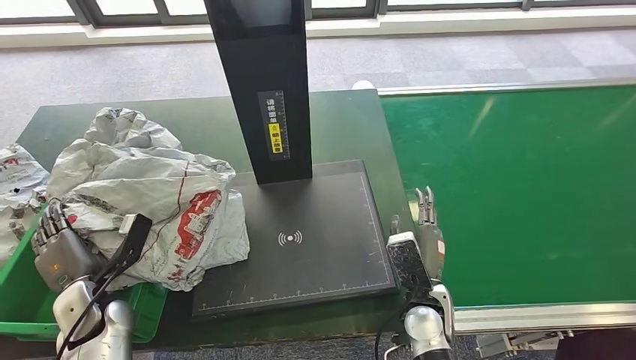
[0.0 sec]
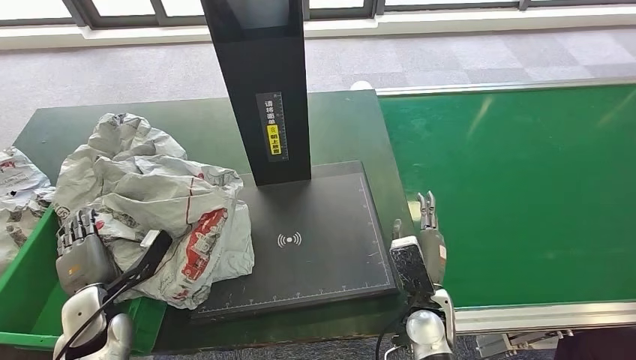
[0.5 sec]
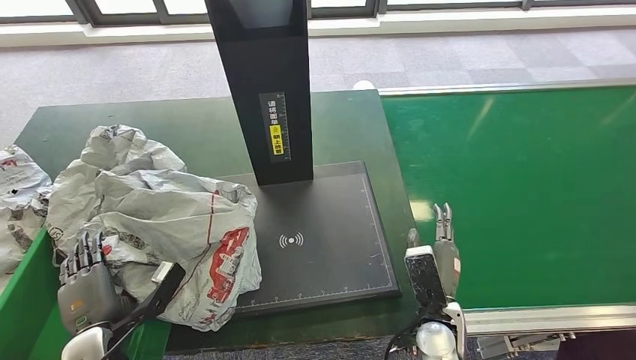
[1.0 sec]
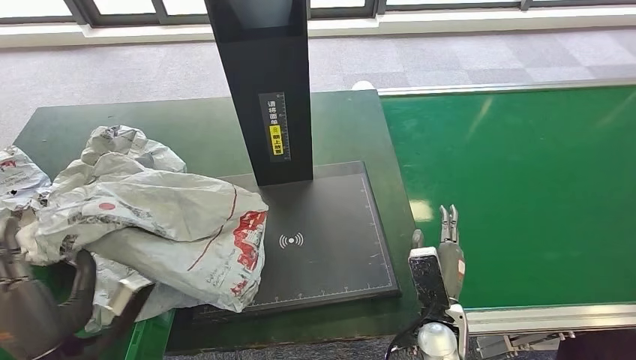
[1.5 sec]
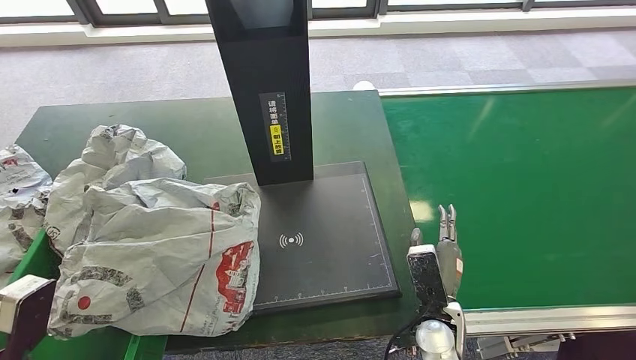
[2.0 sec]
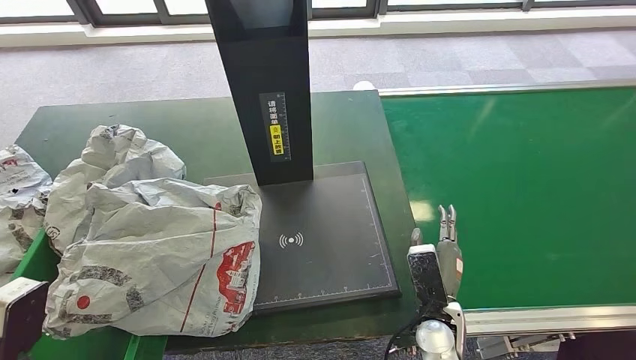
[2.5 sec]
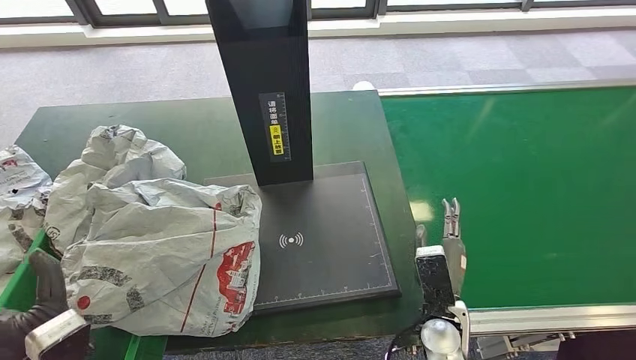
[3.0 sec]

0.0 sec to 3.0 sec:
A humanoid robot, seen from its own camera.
Step, 0.0 sec to 3.0 sec: Place the parcel into the delivery box.

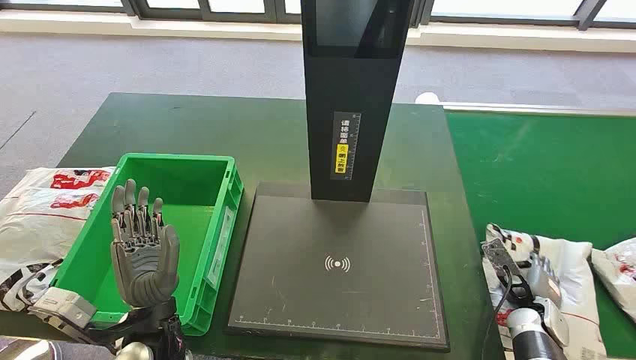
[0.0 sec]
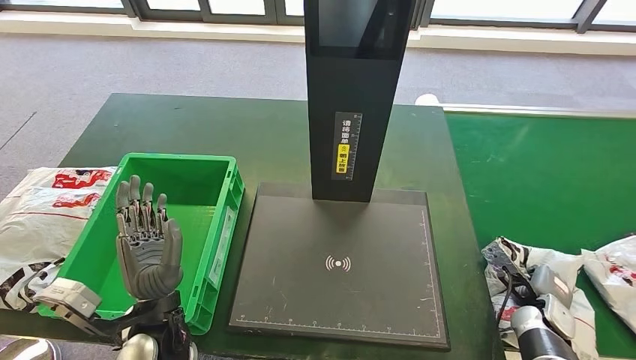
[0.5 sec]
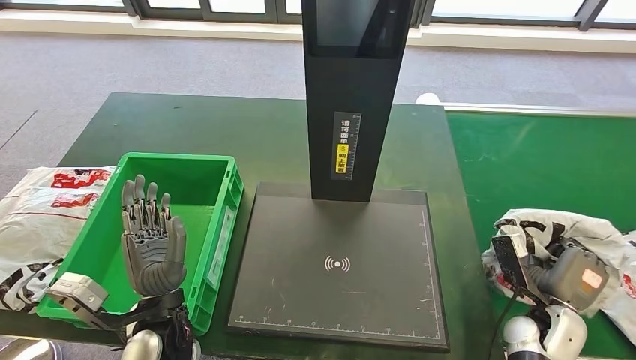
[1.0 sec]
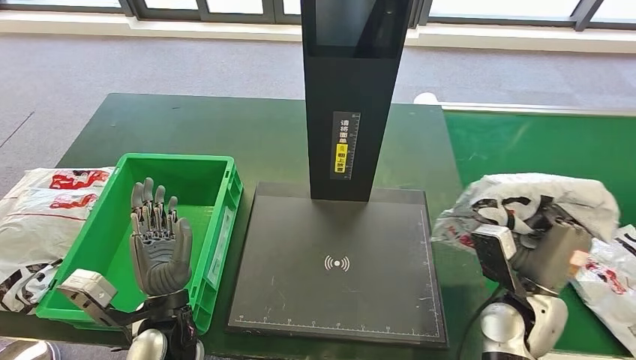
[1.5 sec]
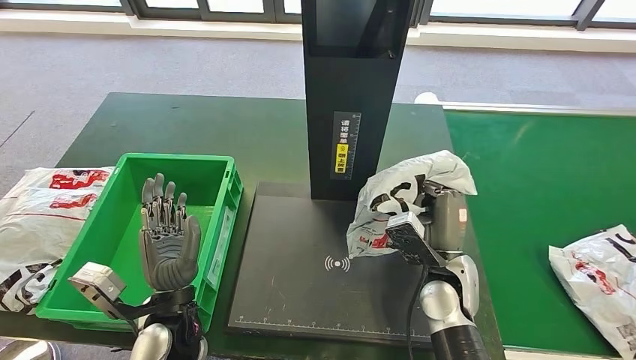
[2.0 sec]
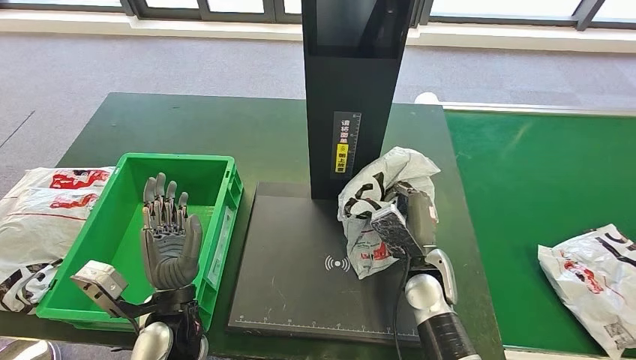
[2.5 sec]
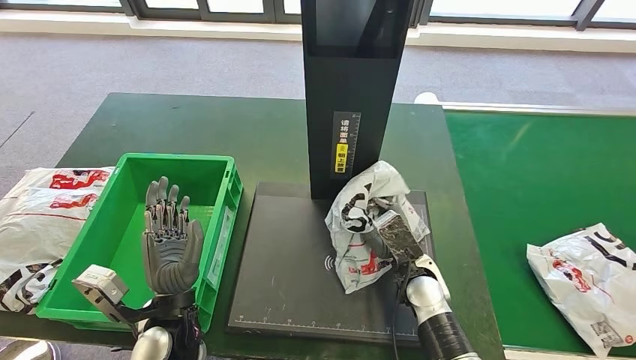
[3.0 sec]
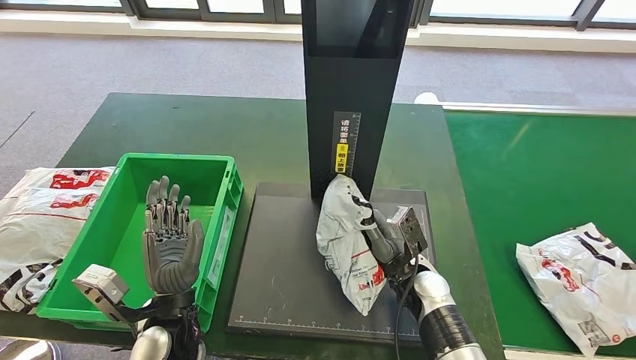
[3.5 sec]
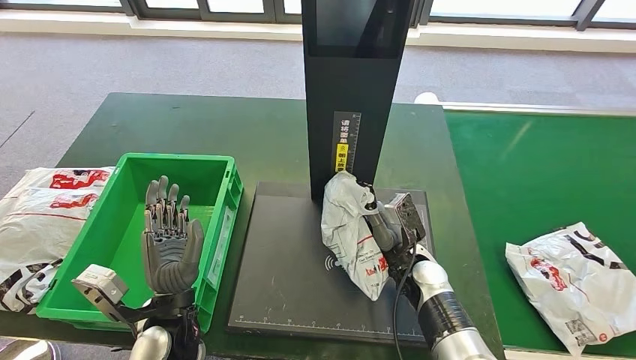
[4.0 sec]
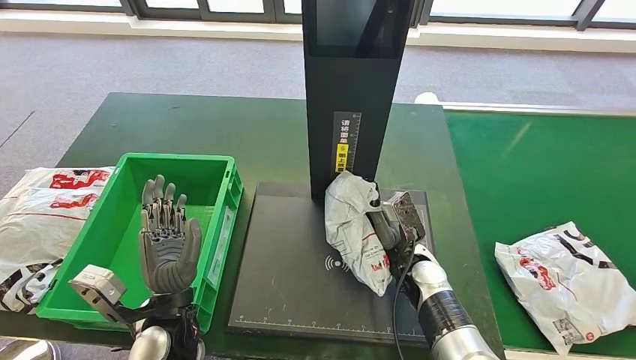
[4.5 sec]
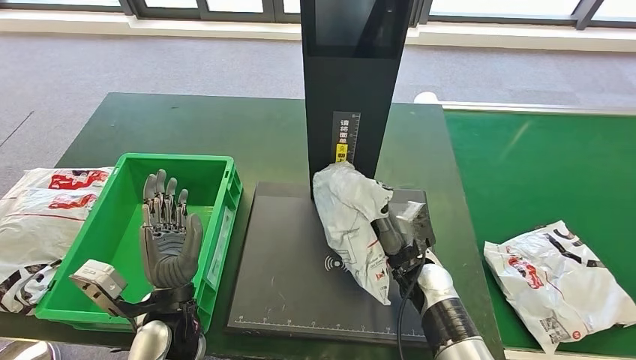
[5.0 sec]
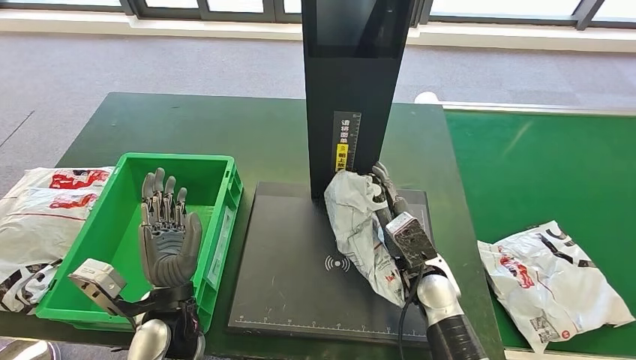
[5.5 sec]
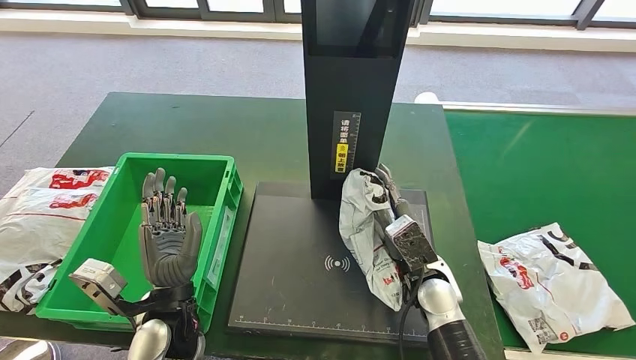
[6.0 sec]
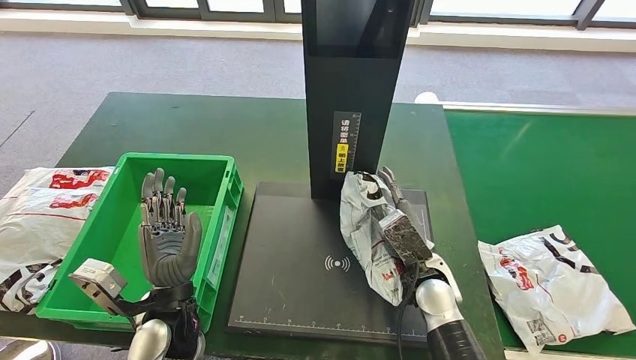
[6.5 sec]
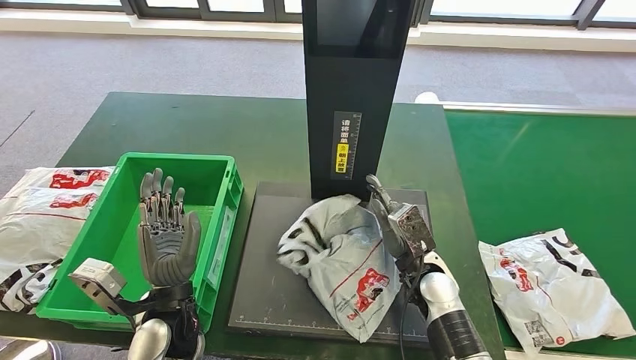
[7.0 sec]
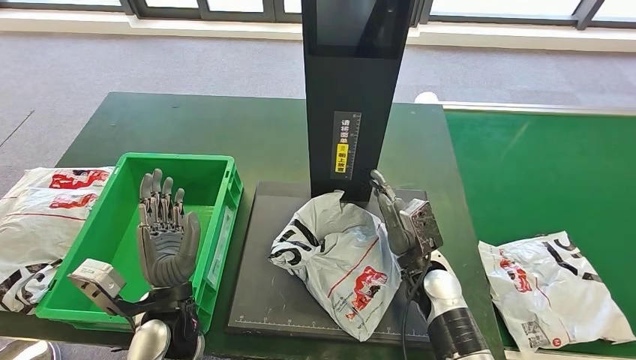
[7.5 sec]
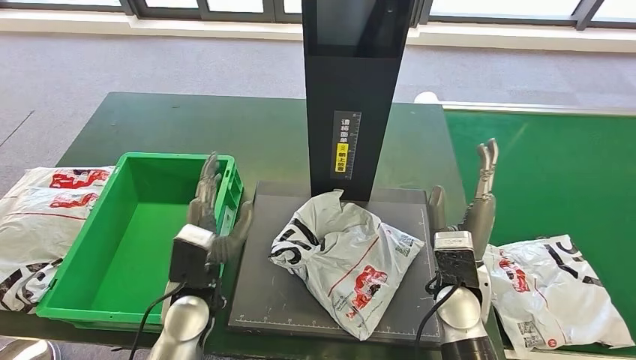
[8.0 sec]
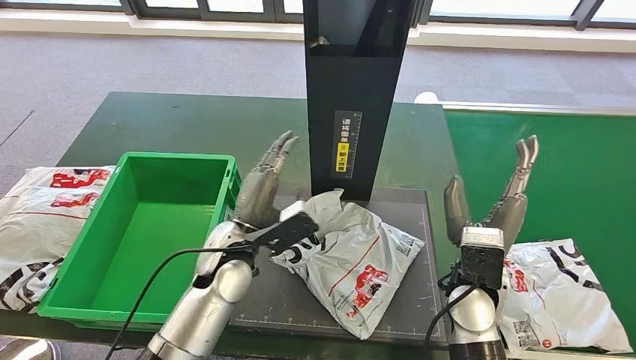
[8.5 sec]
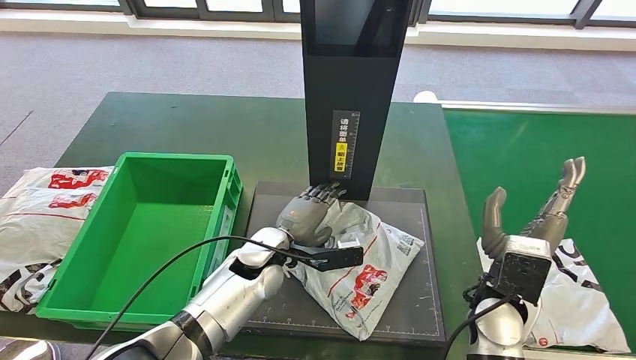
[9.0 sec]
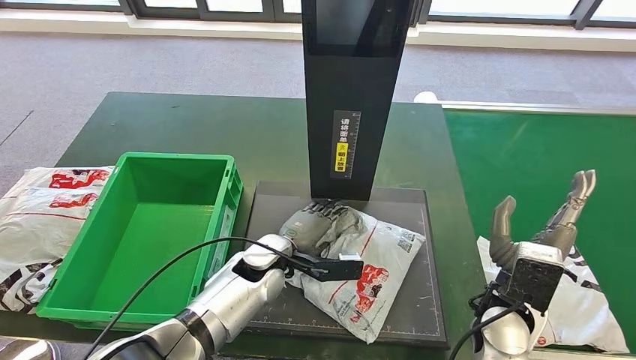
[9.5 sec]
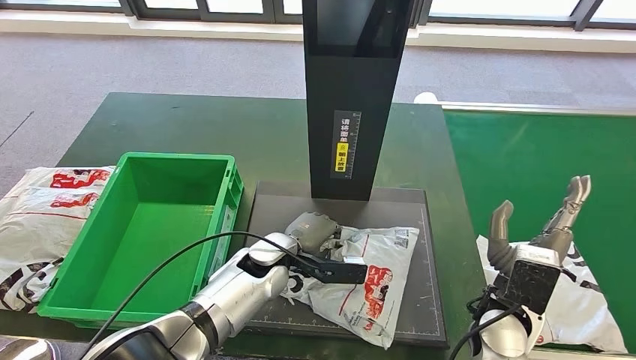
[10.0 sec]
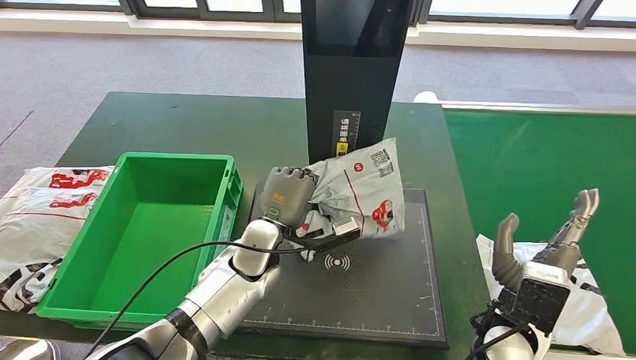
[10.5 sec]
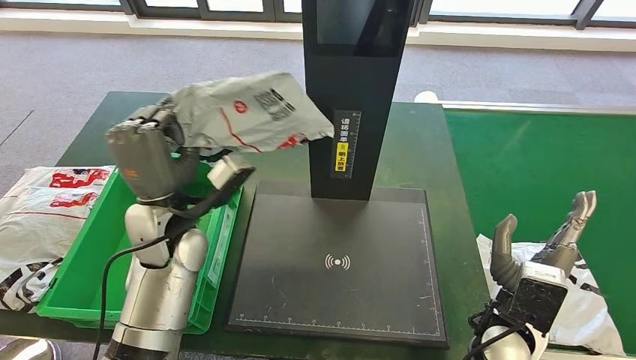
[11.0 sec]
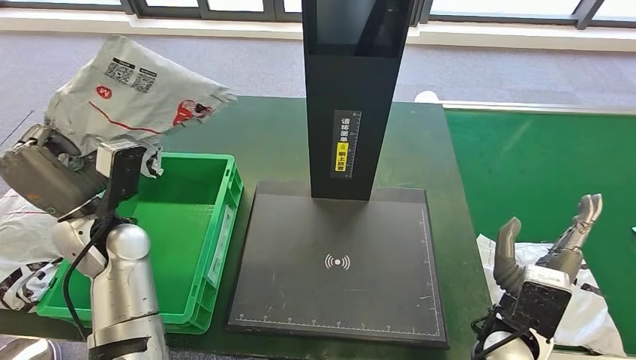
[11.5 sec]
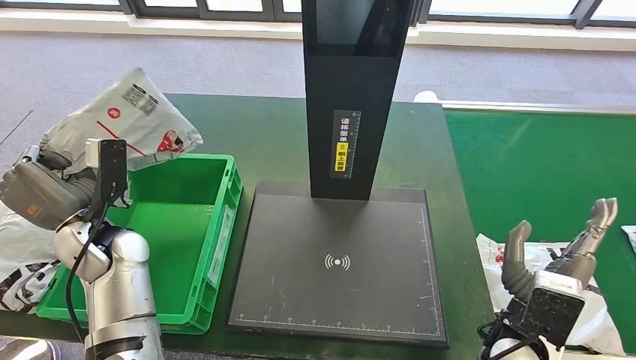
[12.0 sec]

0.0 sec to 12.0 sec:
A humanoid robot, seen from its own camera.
Step, 0.0 sec to 2.0 sec: Take the parcel off the conveyor belt.
Step, 2.5 sec to 8.5 sec: Place the parcel onto the inbound machine.
Step, 9.0 sec to 11.5 sec: Pick up the parcel from the inbound machine.
2.0 sec to 4.0 sec: The right hand shifts roughly 5 cm downward.

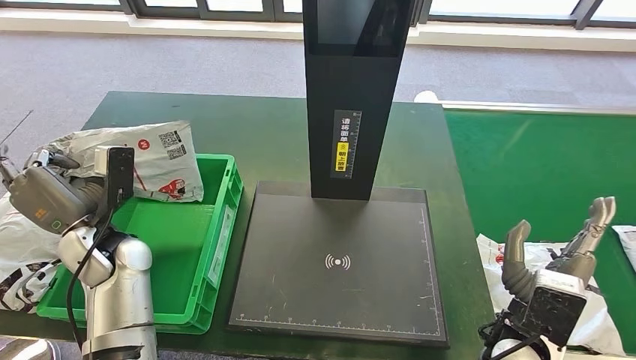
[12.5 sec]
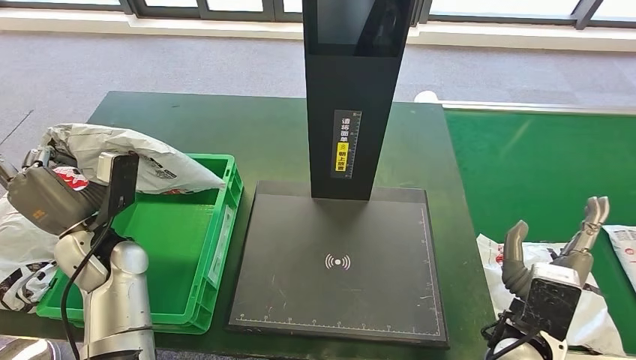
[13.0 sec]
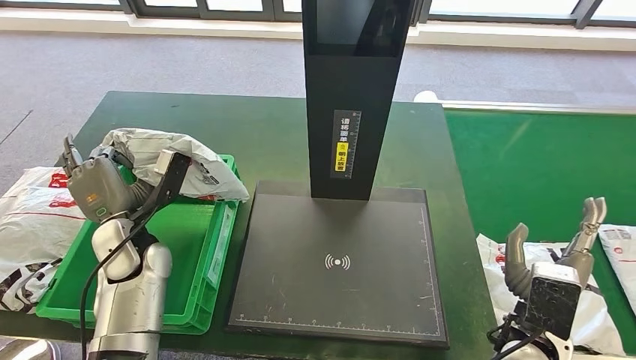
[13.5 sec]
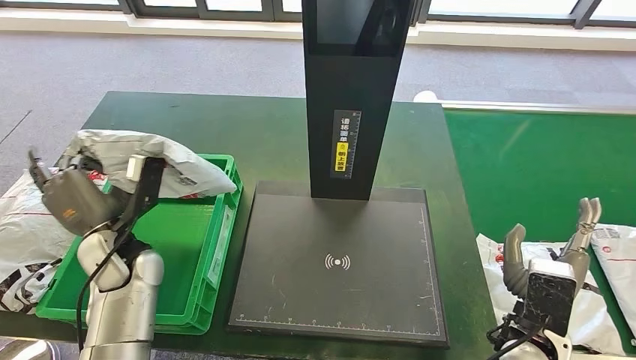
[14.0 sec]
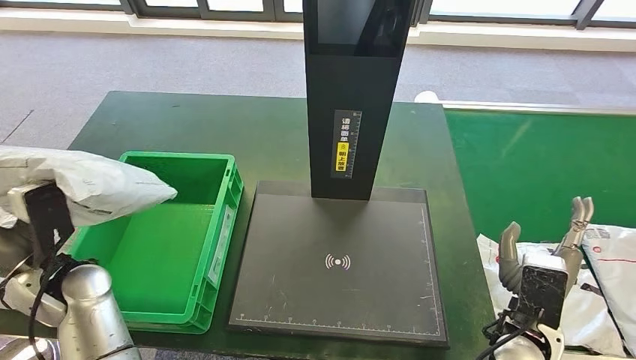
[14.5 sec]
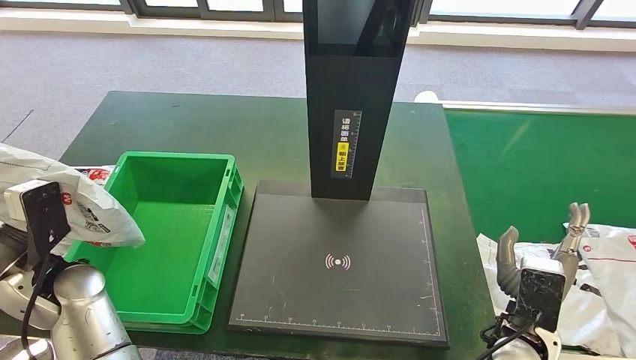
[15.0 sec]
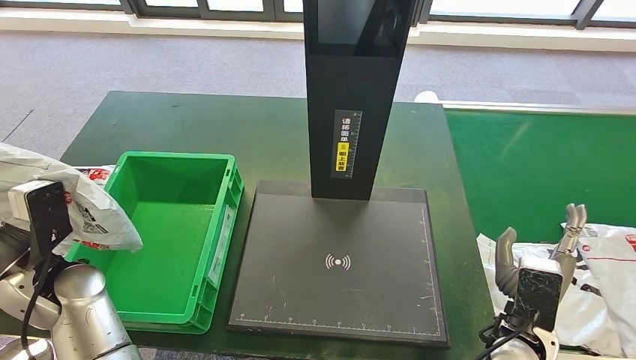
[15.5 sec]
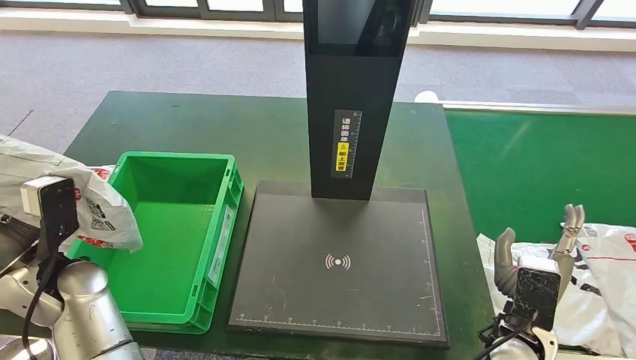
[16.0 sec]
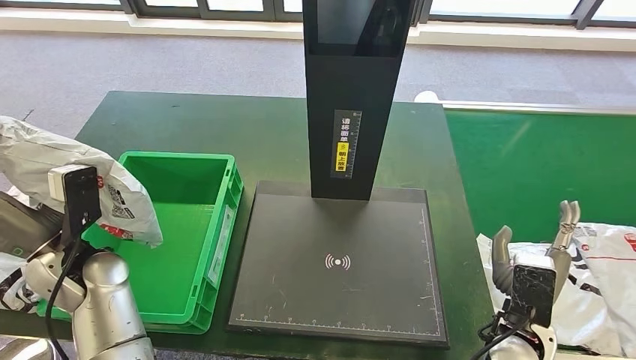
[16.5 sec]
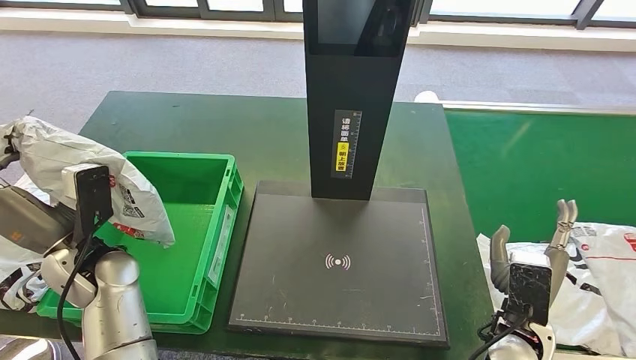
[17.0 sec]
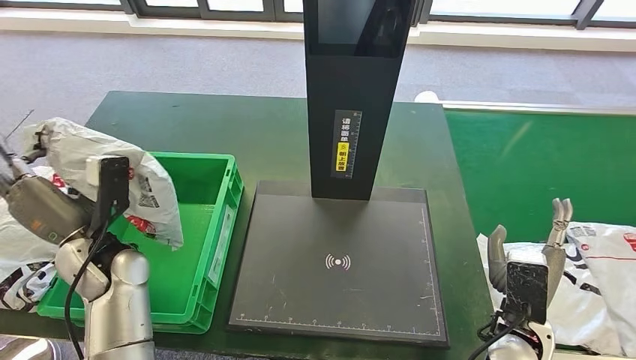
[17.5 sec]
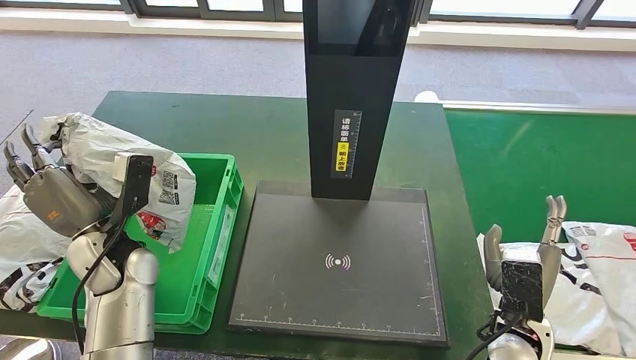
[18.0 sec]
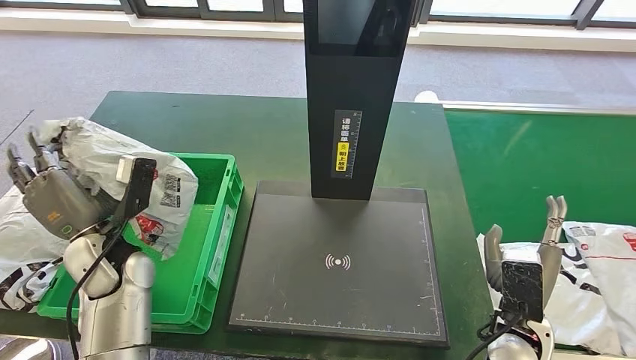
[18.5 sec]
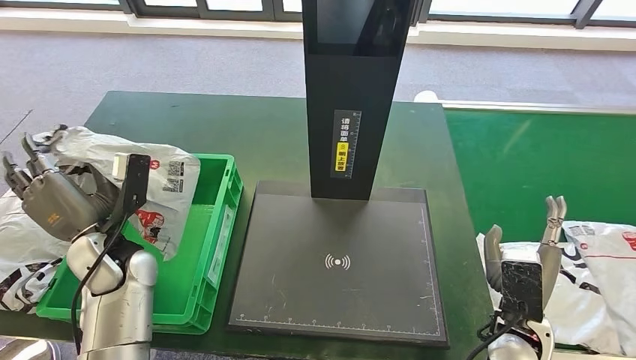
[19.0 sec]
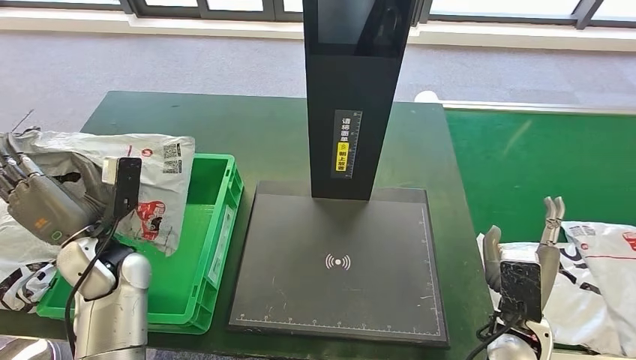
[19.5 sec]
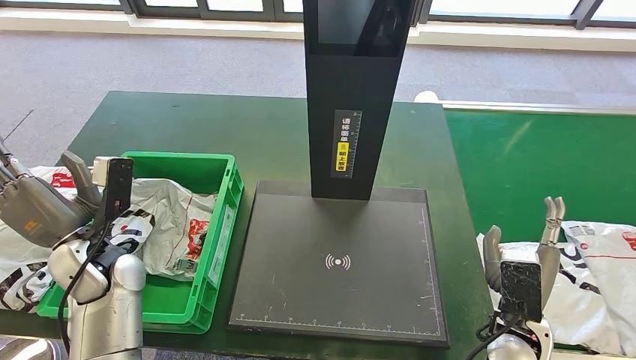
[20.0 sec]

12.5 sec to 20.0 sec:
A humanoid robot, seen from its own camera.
12.5 sec to 14.5 sec: The left hand travels backward by about 5 cm.
14.5 sec to 16.5 sec: There are only small adjustments of the hands.
16.5 sec to 18.0 sec: The hands stay close to where they were, moving slightly.
18.0 sec to 20.0 sec: There are only small adjustments of the hands.
